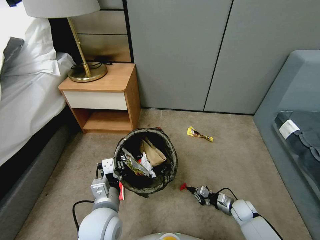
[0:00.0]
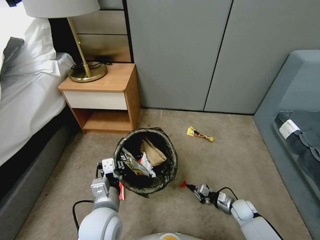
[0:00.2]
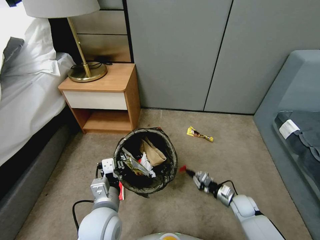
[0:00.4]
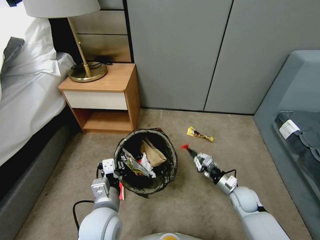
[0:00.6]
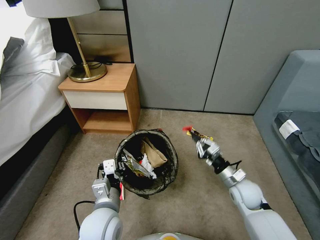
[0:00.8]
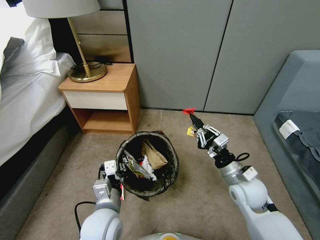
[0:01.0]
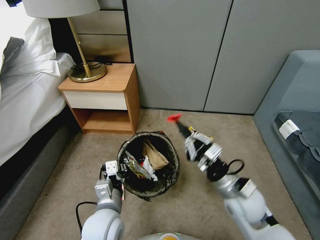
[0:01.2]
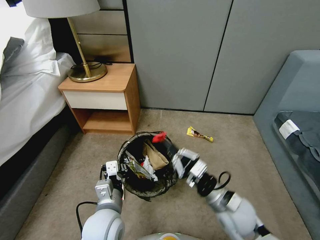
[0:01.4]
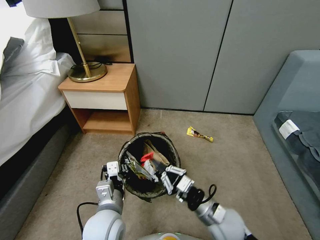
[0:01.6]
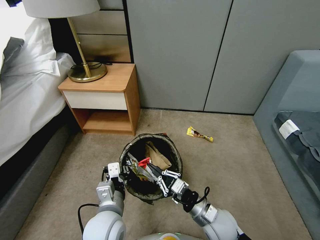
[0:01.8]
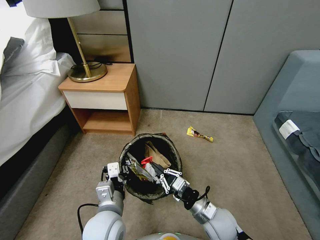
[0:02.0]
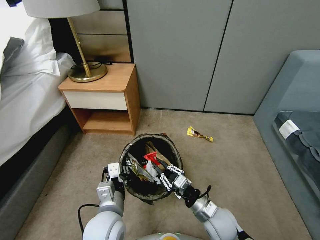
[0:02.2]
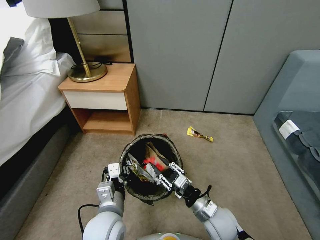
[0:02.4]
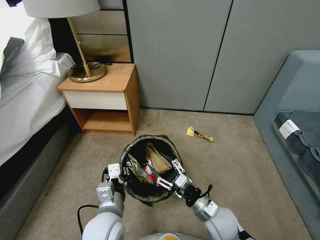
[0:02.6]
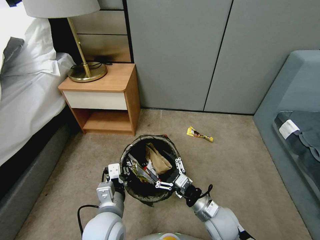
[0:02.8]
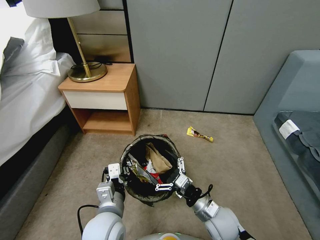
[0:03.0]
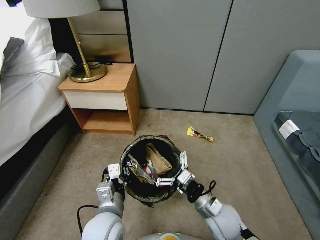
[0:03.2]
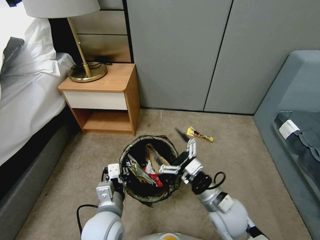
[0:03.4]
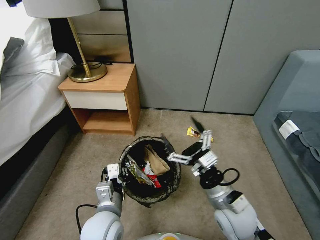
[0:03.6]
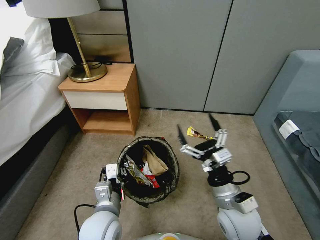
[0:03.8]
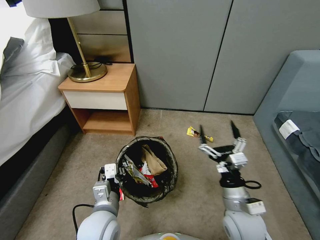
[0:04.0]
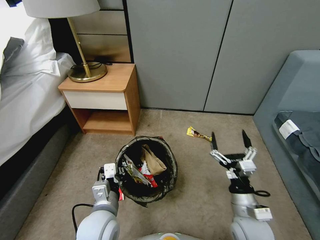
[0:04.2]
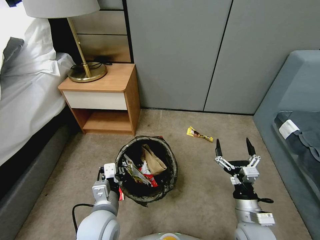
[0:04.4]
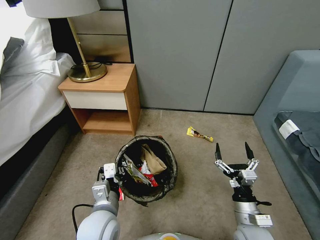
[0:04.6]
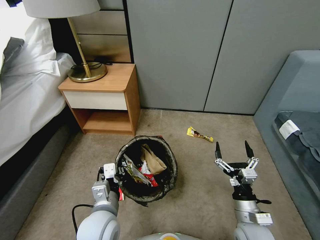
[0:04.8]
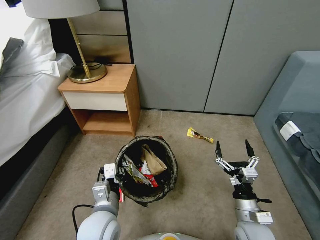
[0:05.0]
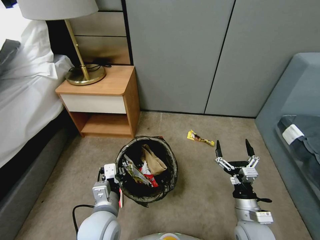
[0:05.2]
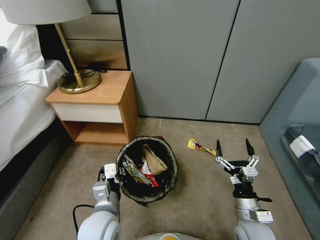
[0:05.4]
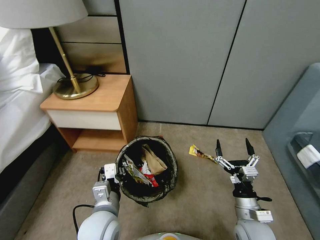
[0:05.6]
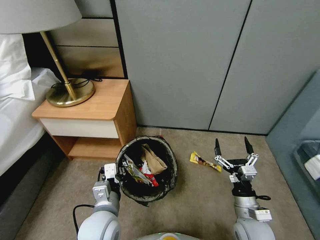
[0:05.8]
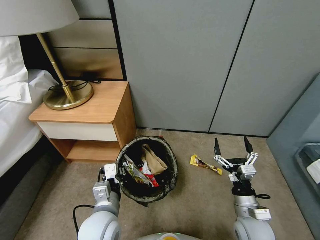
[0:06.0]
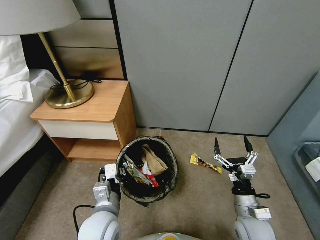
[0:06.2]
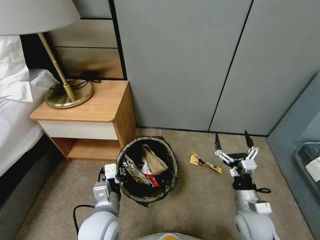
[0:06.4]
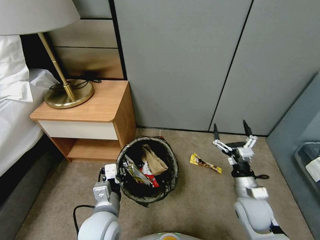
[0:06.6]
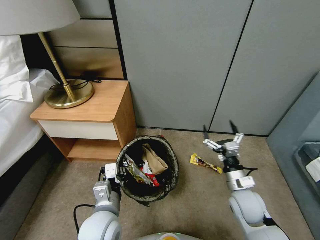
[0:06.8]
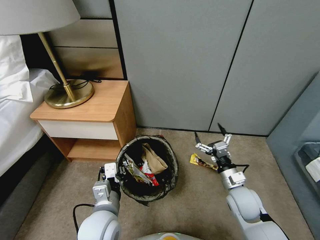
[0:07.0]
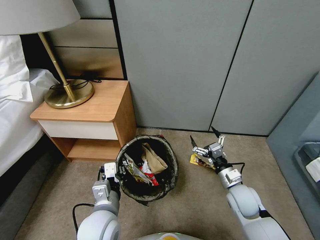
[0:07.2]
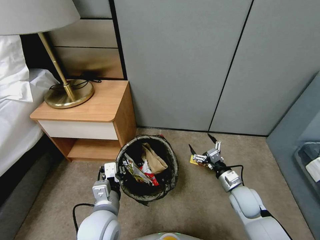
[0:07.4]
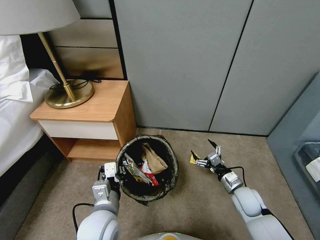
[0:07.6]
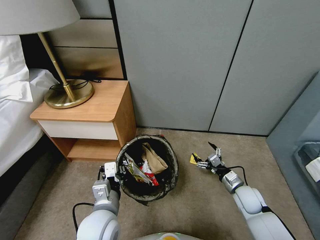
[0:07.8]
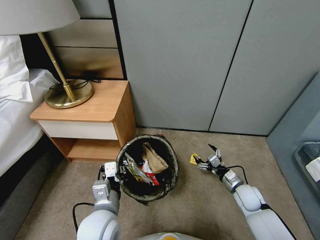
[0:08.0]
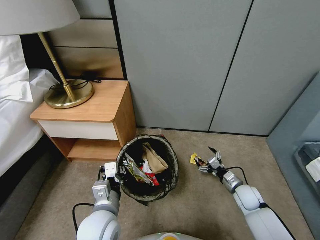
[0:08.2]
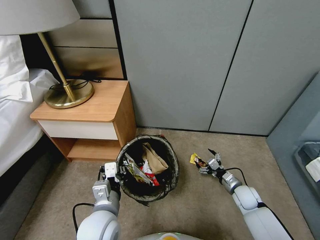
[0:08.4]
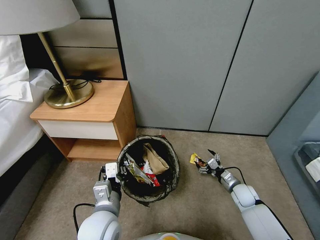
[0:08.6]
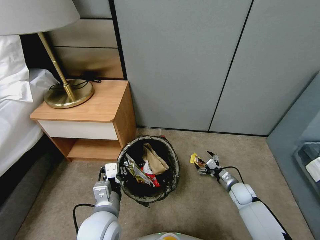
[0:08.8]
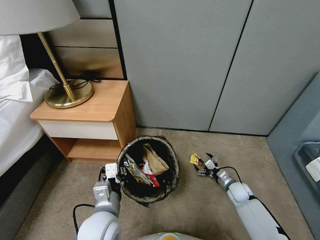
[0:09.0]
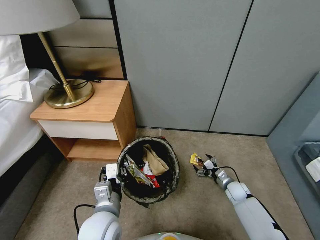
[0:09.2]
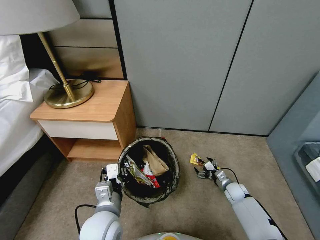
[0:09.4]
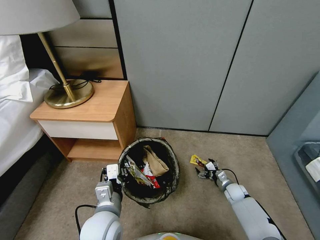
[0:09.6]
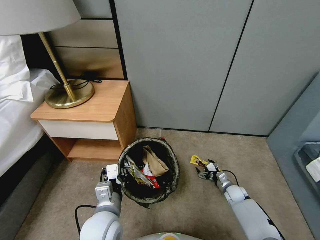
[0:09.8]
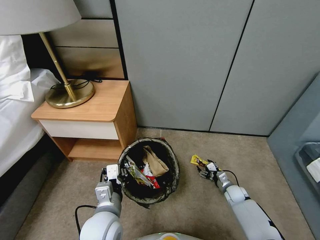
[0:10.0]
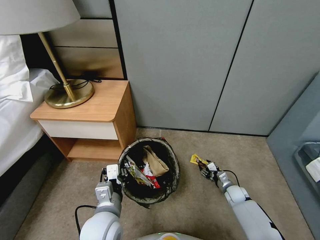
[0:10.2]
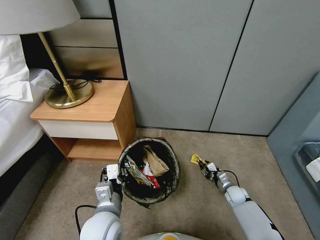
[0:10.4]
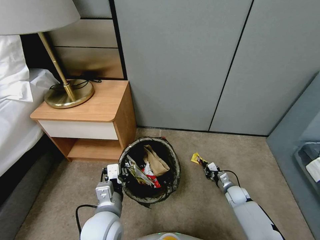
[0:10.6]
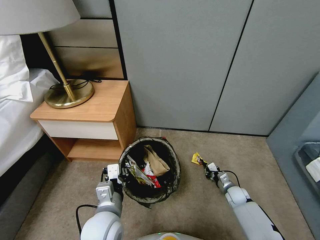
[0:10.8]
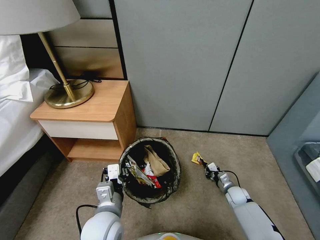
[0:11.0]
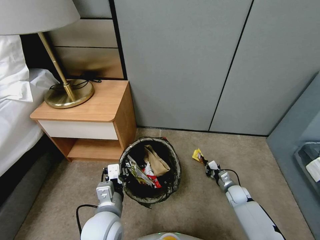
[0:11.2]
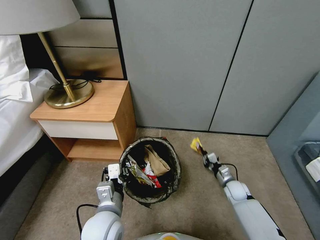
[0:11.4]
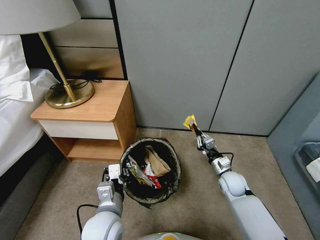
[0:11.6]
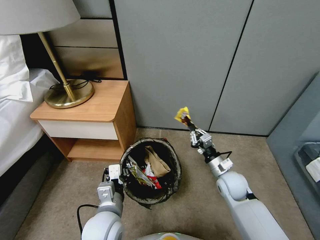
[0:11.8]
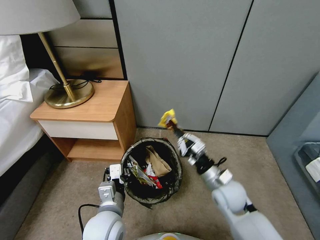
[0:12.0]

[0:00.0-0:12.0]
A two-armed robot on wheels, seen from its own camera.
Task of the whole recording: Pick up the trash bin, then pick up the garbage from the floor and place it into the trash bin.
0:00.0 to 0:01.6: The right gripper heads upward and to the left, covering roughly 25 cm.
0:01.6 to 0:03.0: The right gripper opens its fingers.
0:03.0 to 0:04.4: The right gripper heads to the right, covering approximately 10 cm, and moves approximately 10 cm upward and comes back.
0:06.0 to 0:07.6: The right gripper goes approximately 10 cm forward.
0:07.6 to 0:09.0: The right gripper heads downward and forward, covering some 10 cm.
0:09.0 to 0:10.4: The right gripper closes.
0:10.4 to 0:12.0: The right gripper moves upward and to the left, approximately 25 cm.

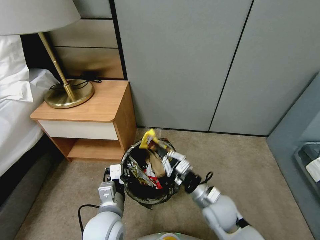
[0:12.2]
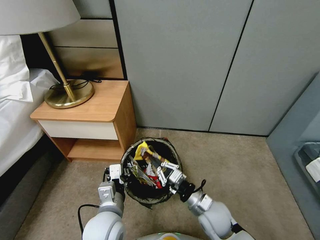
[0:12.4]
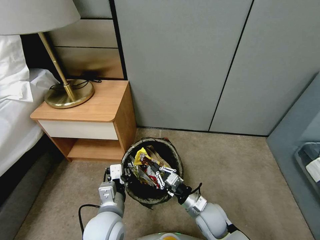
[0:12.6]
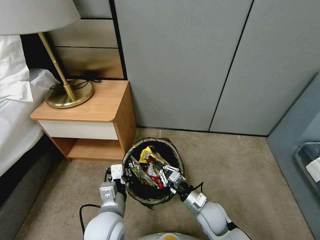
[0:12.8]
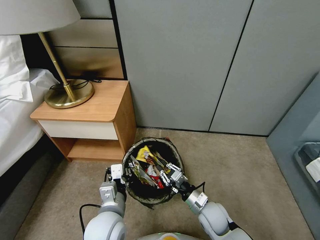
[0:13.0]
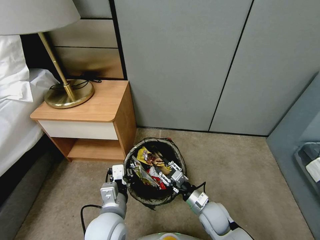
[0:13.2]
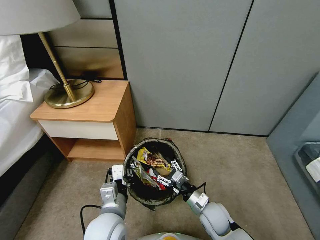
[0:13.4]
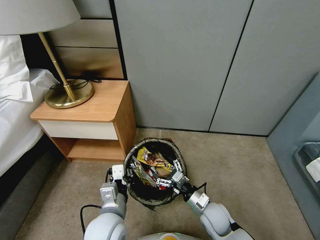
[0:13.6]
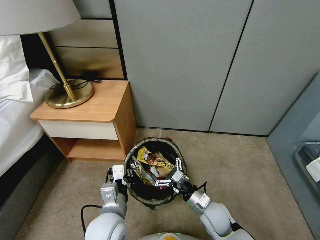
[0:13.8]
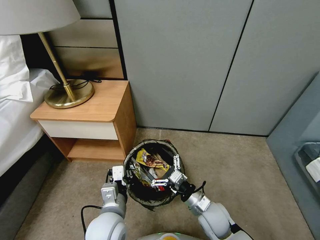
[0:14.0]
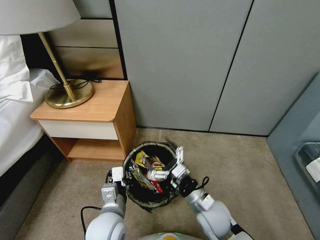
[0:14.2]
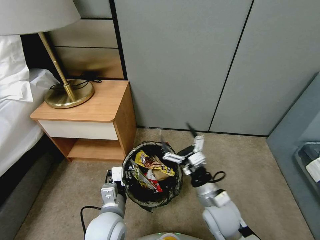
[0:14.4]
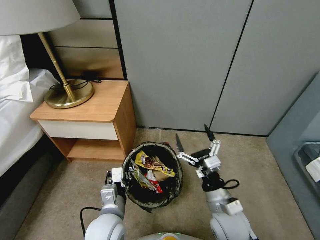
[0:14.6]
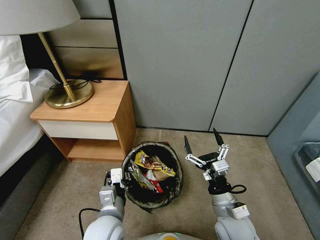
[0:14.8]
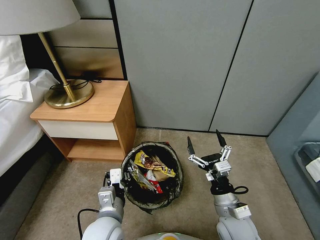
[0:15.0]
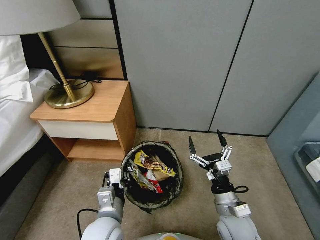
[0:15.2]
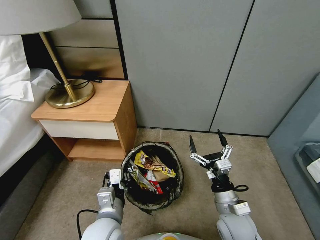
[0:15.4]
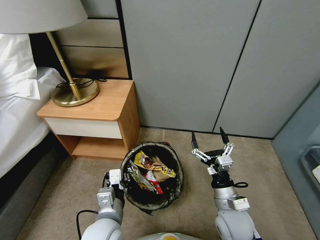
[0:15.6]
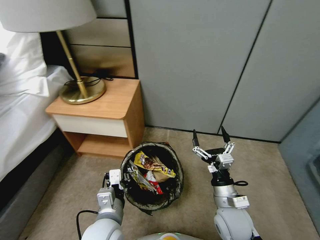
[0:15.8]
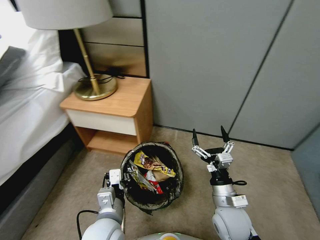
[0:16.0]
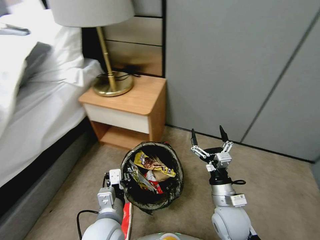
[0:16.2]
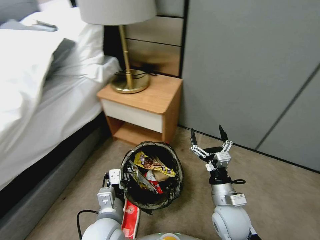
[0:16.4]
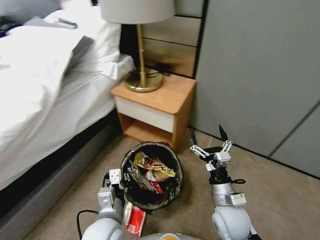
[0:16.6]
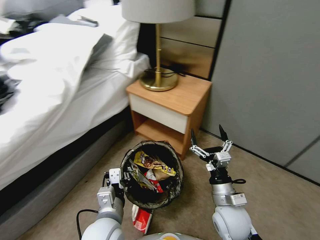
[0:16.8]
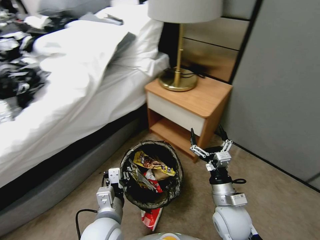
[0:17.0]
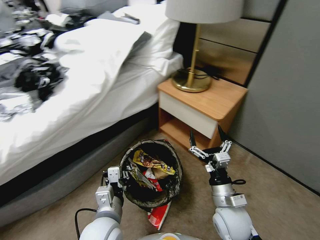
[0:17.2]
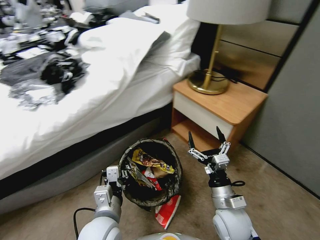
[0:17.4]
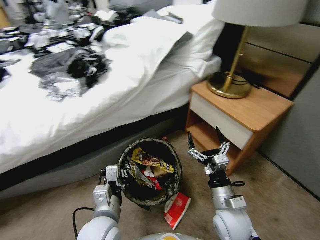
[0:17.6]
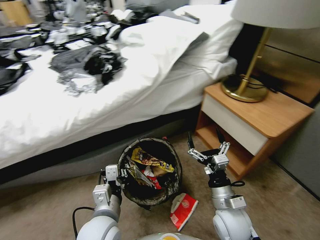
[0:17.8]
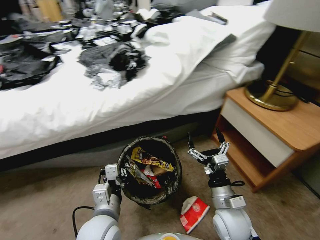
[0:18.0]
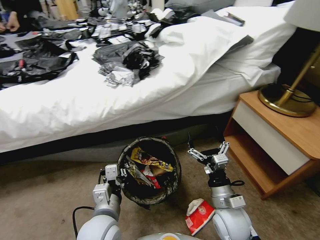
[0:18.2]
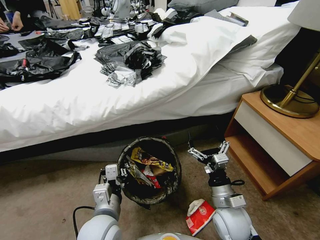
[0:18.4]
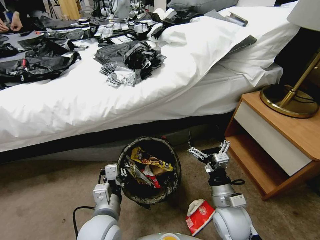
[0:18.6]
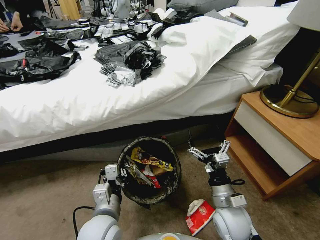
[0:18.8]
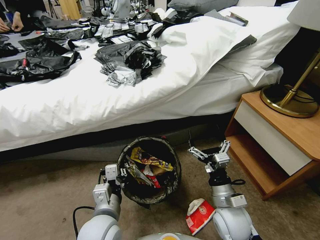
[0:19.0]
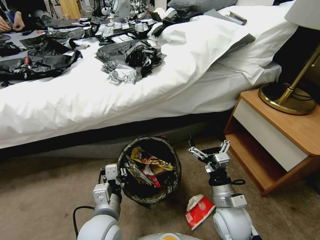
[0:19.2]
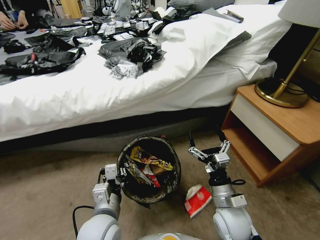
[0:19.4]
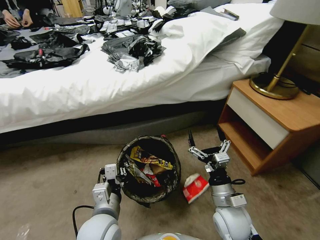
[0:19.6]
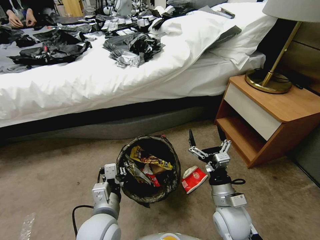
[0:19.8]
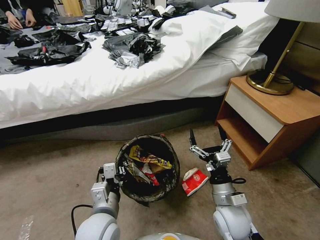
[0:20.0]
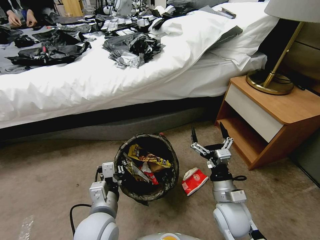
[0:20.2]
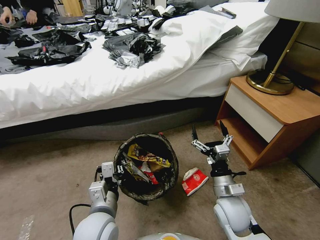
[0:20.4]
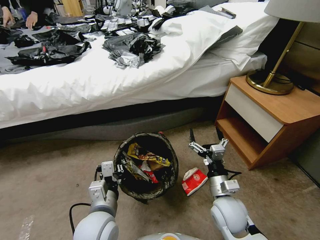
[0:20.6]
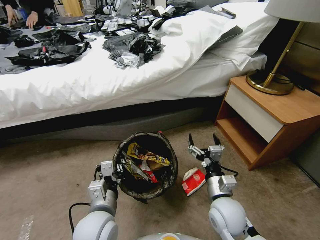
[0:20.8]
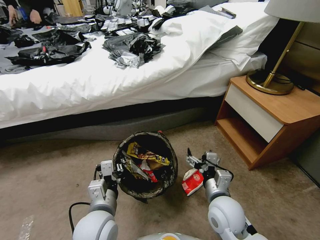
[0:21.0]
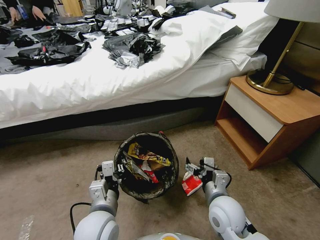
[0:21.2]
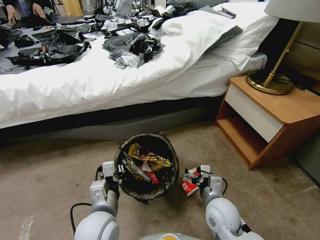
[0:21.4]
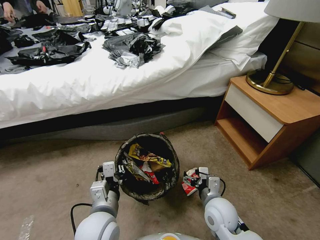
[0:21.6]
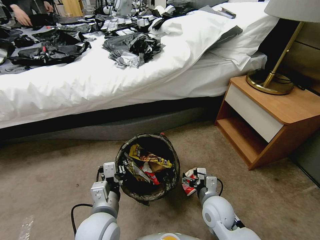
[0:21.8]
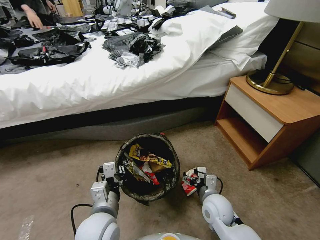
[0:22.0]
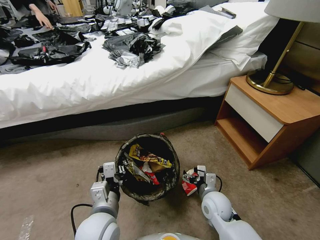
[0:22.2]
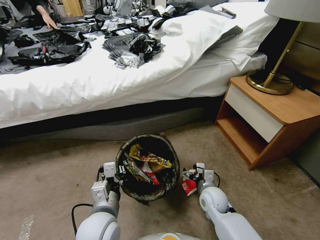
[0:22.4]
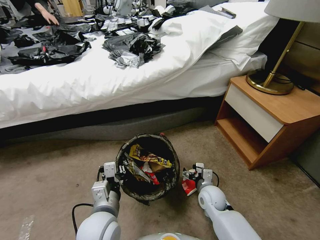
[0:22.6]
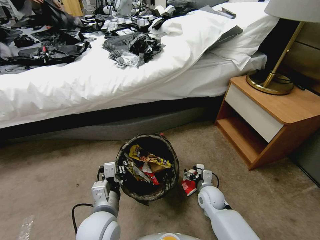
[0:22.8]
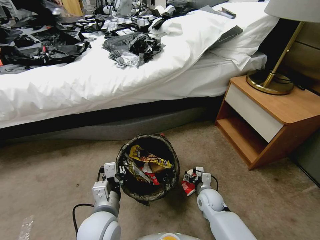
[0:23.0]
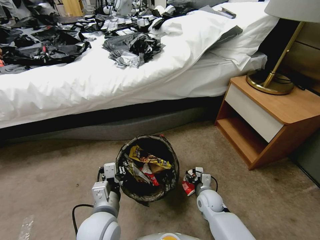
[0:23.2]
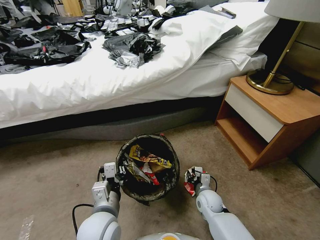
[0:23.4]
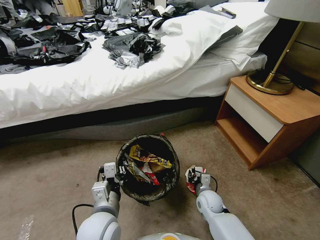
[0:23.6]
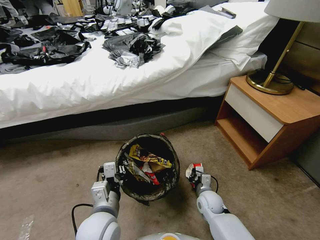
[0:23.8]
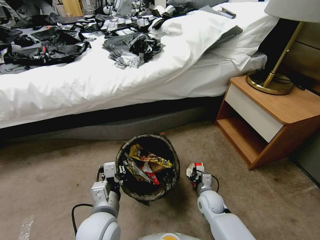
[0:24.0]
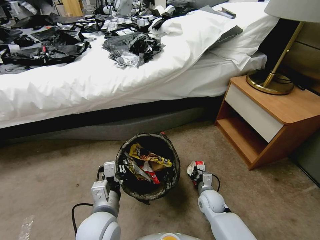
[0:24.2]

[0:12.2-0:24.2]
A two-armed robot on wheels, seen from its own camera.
Task of the whole recording: Pick up the trash bin, then pick up the garbage from the floor and place it into the trash bin.
0:12.2 to 0:13.8: The right gripper travels downward by roughly 10 cm, and opens up.
0:13.8 to 0:15.2: The right gripper goes roughly 10 cm upward.
0:21.2 to 0:22.6: The right gripper is displaced downward and forward by roughly 15 cm.
0:22.6 to 0:24.2: The right gripper closes up.
